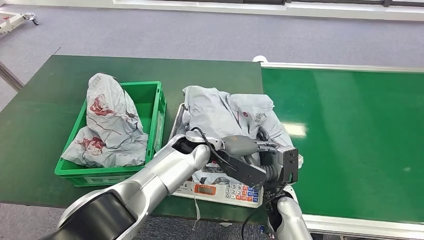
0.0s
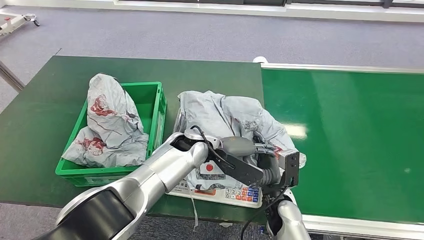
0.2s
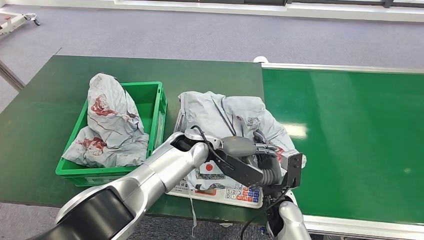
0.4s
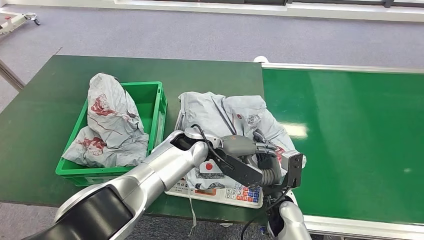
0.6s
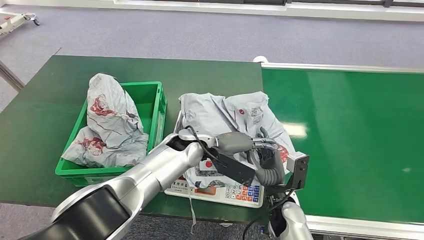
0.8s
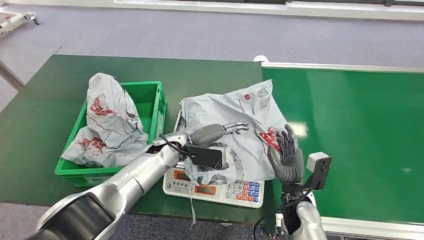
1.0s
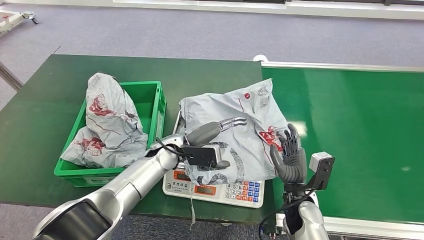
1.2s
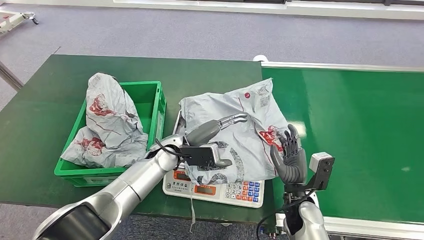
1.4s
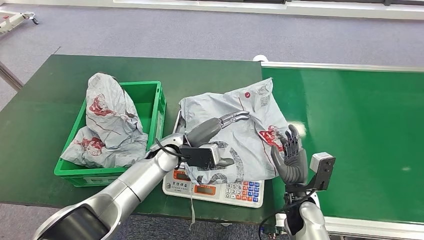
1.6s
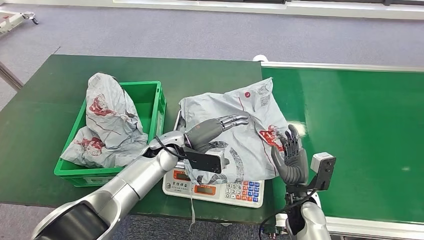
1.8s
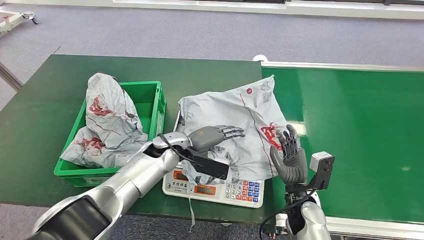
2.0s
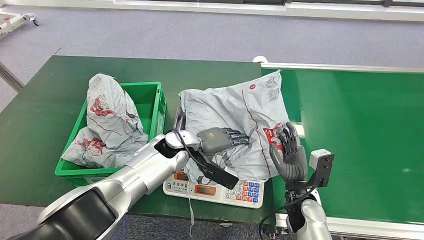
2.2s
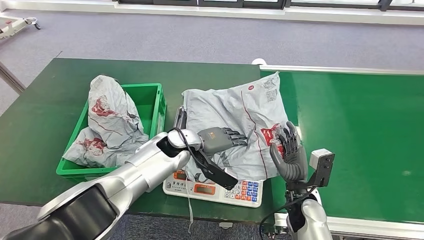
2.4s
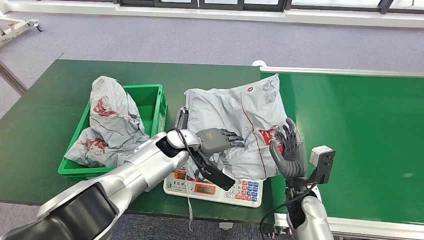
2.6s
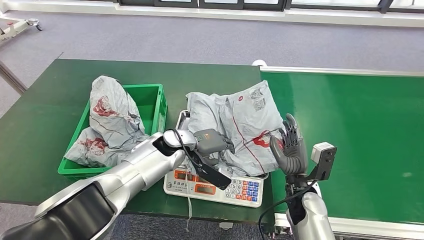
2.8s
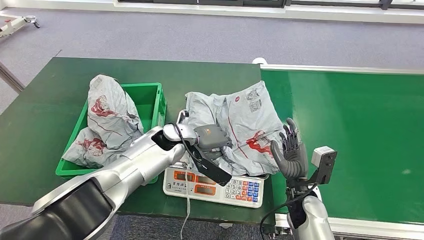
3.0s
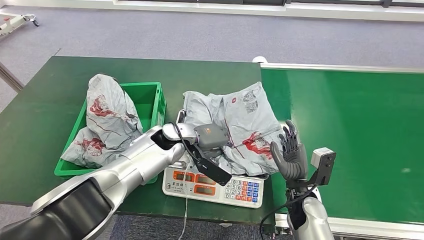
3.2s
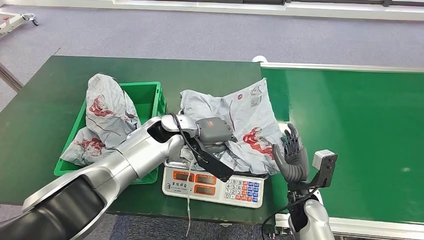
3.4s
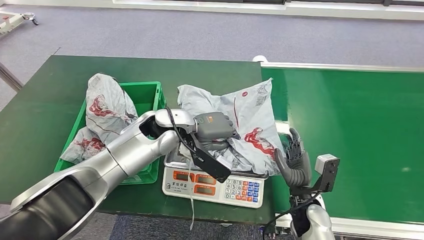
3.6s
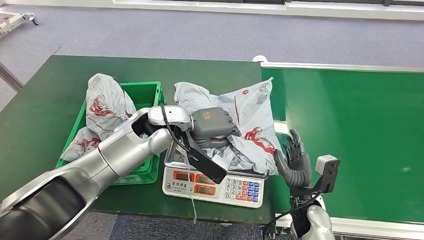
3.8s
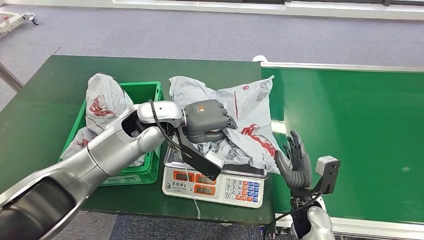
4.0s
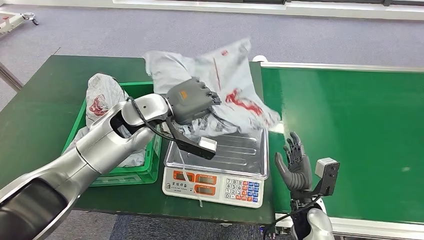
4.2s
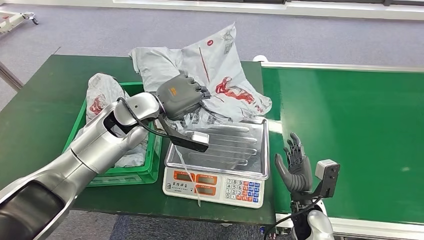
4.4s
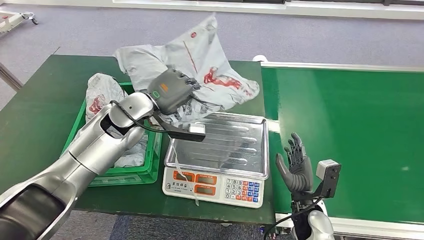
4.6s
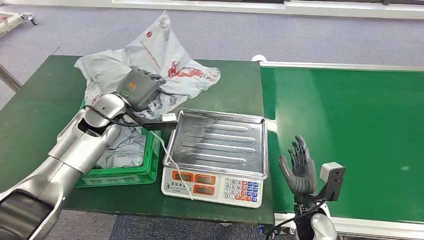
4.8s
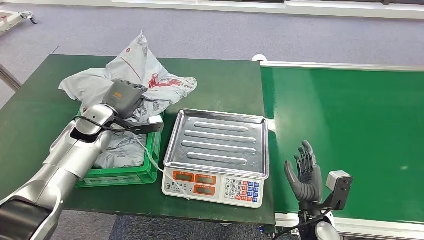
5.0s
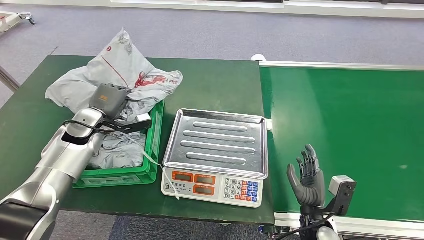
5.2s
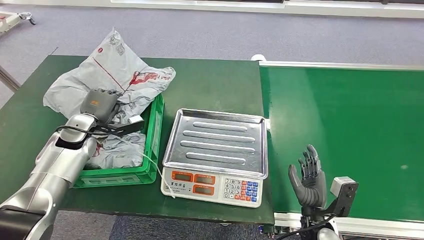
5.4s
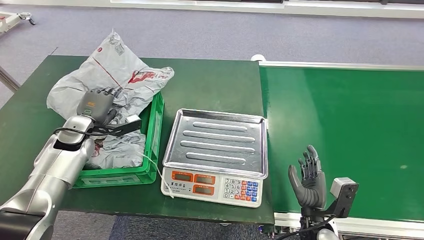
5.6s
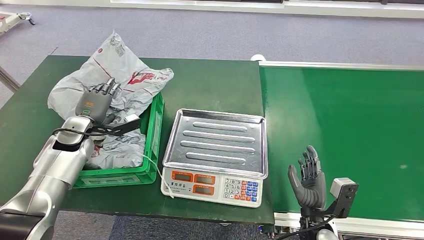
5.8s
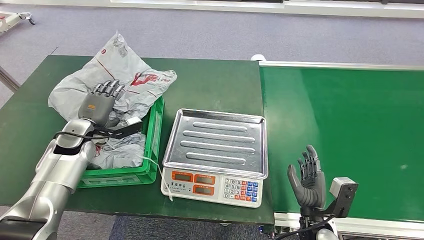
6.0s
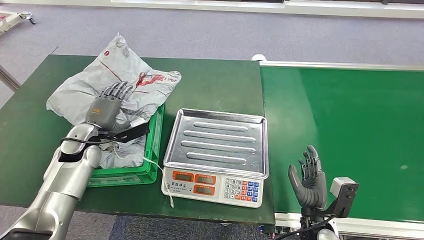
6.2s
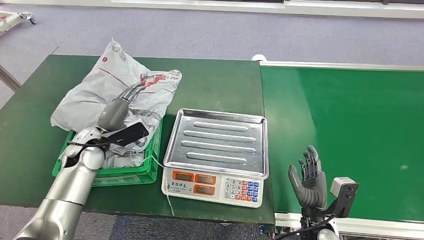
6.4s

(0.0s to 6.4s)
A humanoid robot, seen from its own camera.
Step, 0.0s - 4.2s: Pick up the package from the inbound machine.
Step, 4.4s - 6.4s: Place the package into the parcel locker.
